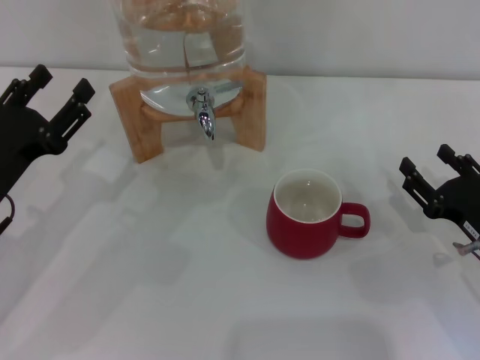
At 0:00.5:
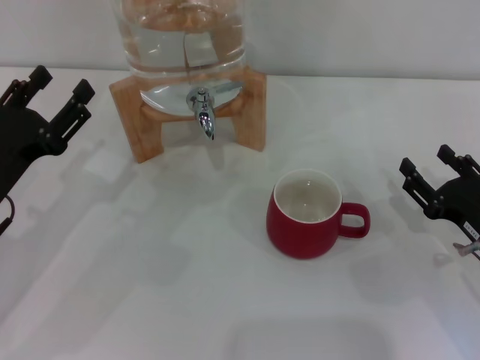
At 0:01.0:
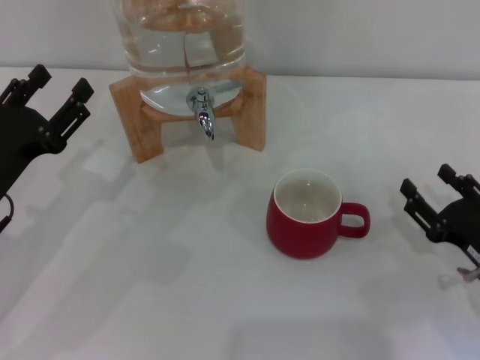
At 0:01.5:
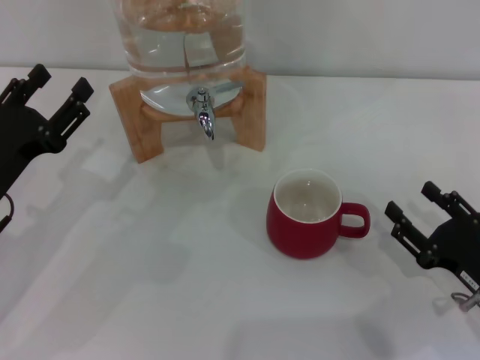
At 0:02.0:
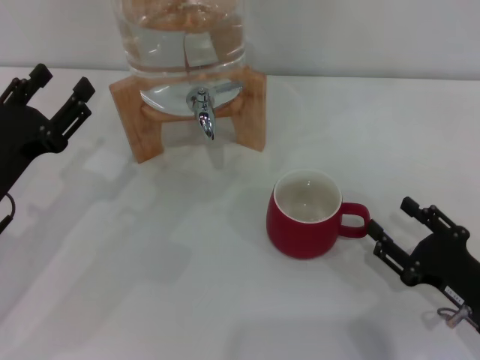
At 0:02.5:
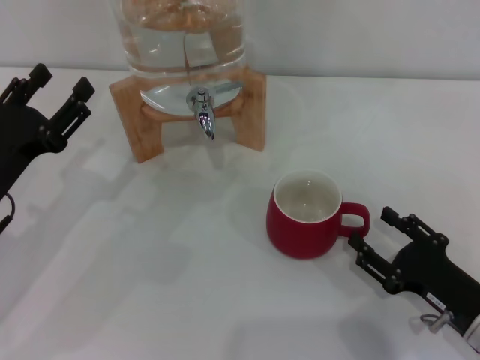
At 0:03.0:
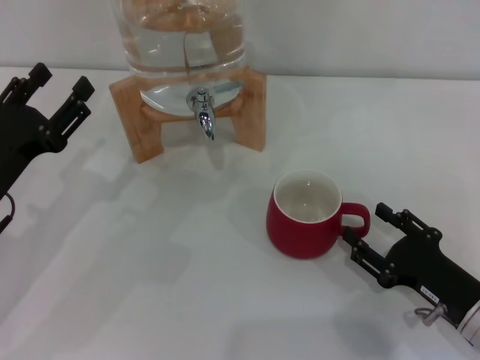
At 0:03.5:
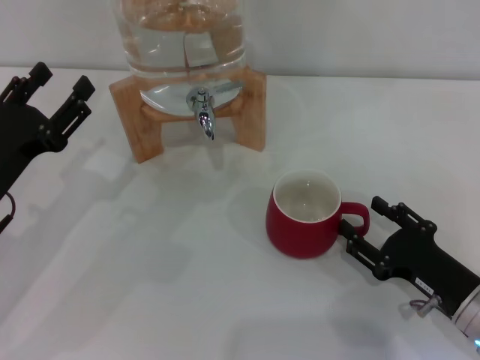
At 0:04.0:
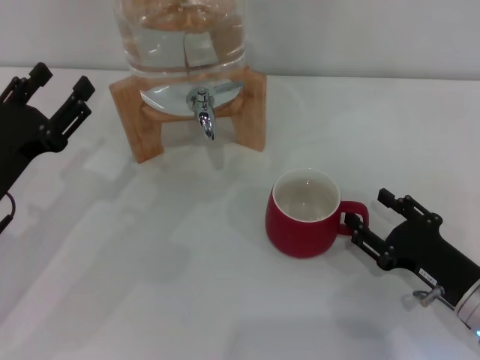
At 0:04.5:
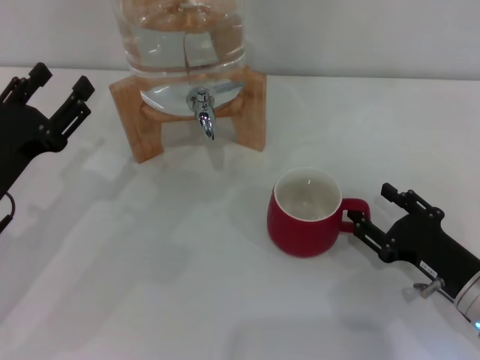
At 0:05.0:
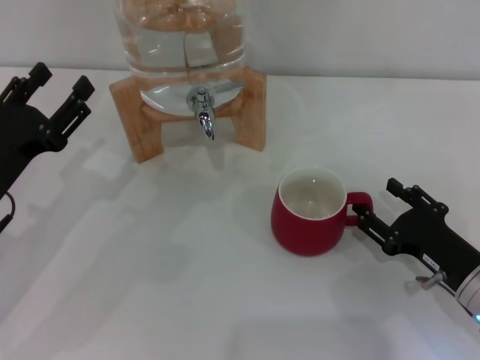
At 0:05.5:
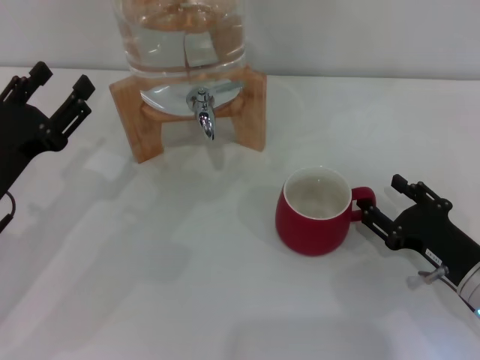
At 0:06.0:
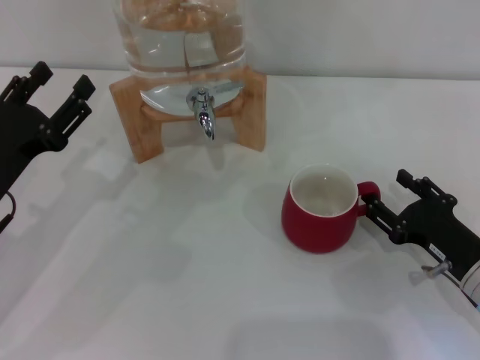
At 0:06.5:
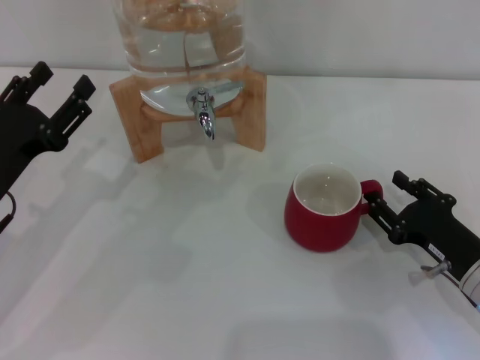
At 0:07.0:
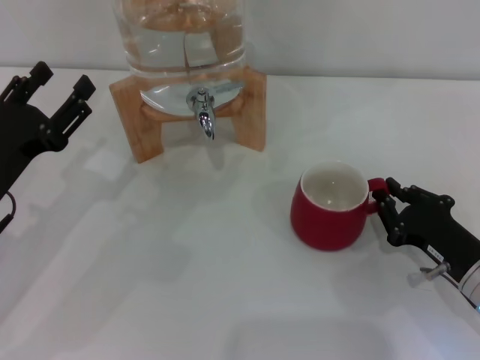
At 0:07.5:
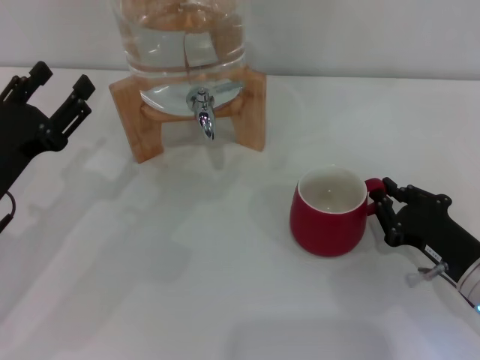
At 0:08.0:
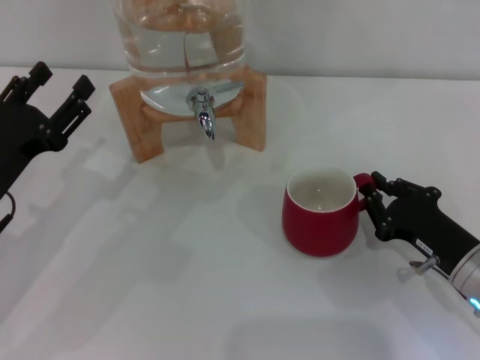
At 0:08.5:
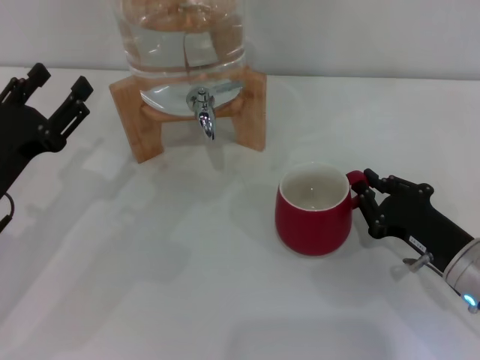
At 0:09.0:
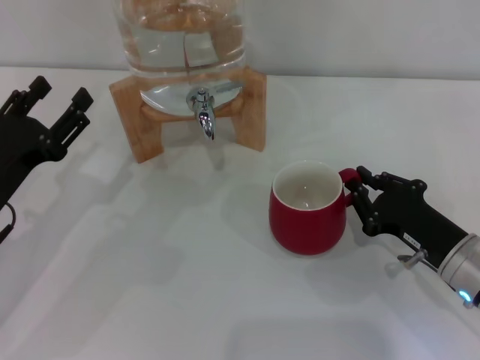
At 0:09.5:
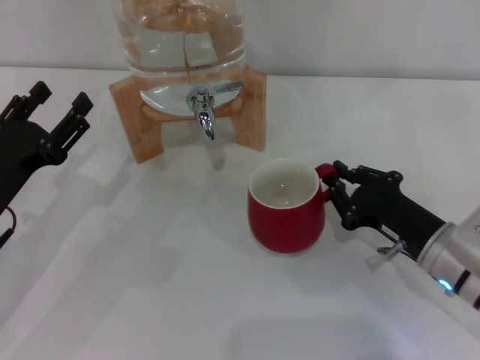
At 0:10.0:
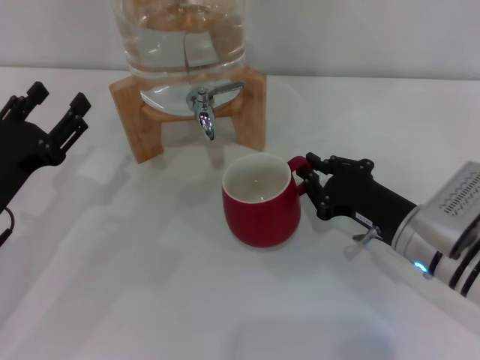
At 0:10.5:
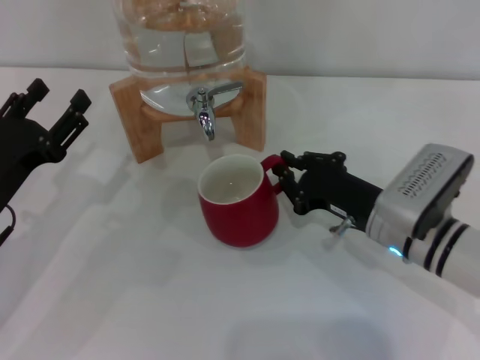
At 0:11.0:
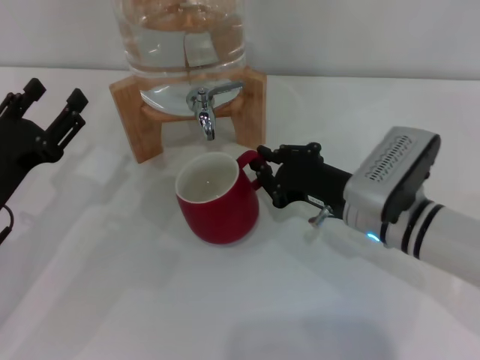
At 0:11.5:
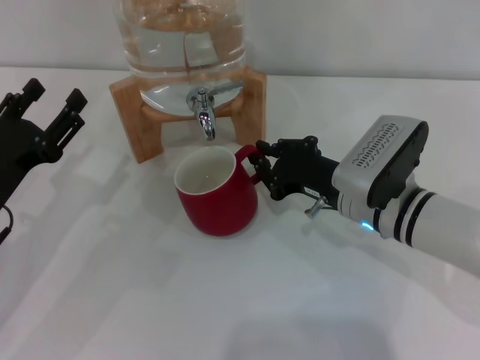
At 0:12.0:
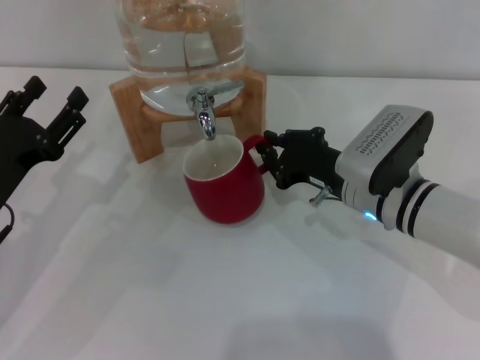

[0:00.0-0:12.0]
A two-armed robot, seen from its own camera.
Task of the whole recording: the right gripper pick up the red cup and place it horizontally under the faucet, the left gripper turn on the faucet to fill the cup, and then turn off the faucet.
0:00.0 to 0:02.0: The right gripper is displaced backward by approximately 5 cm.
0:02.0 to 0:06.0: There are only small adjustments of the grippers.
0:06.0 to 0:08.0: The right gripper closes up.
0:08.0 to 0:10.0: The right gripper travels to the left by about 5 cm.
0:10.0 to 0:12.0: The right gripper changes place by about 5 cm.

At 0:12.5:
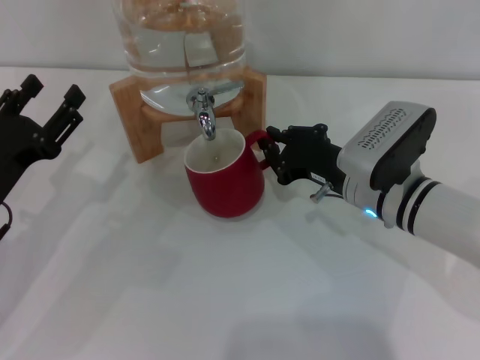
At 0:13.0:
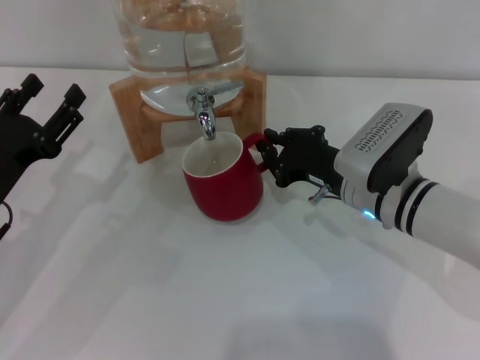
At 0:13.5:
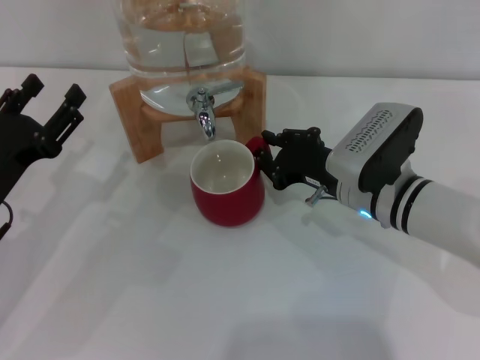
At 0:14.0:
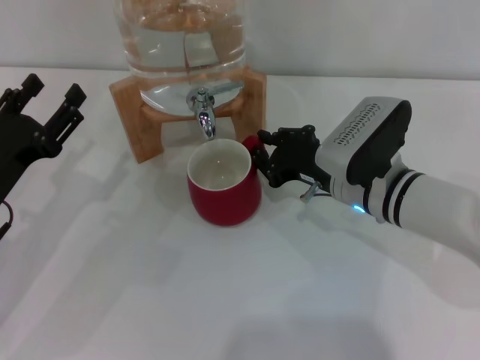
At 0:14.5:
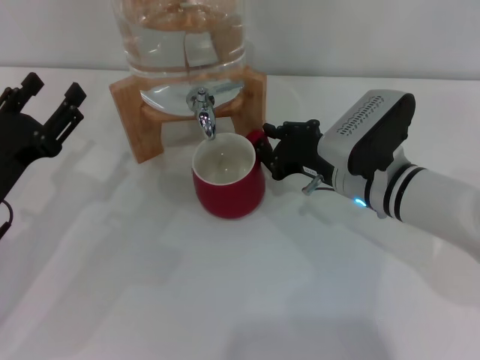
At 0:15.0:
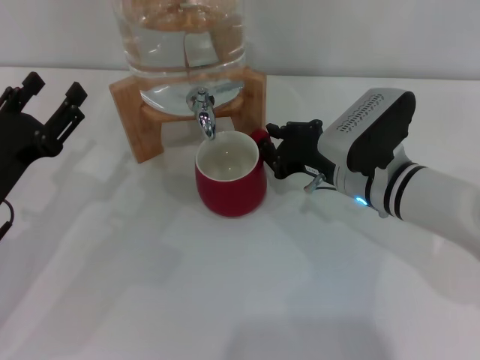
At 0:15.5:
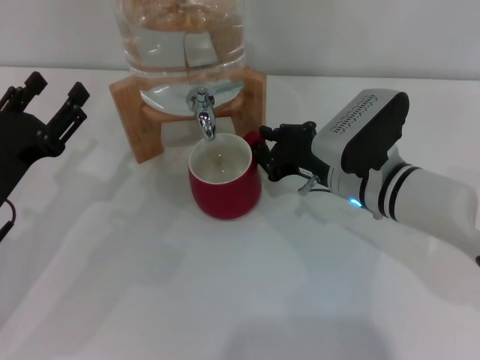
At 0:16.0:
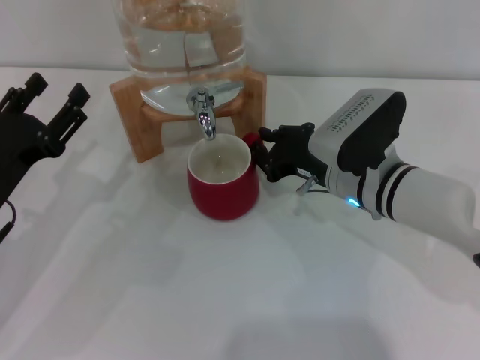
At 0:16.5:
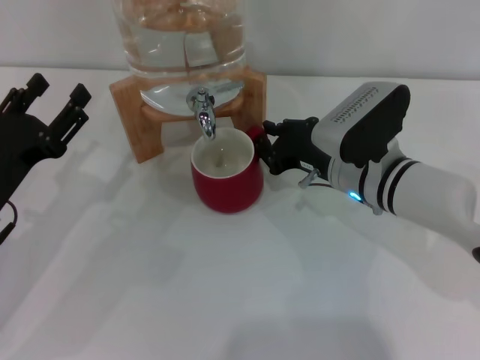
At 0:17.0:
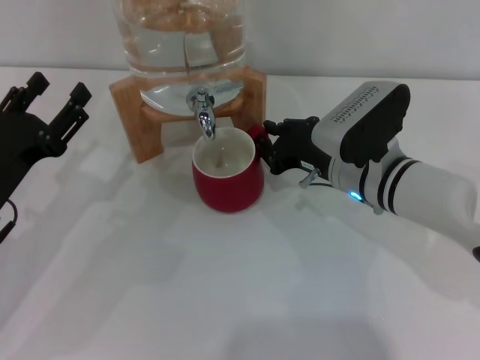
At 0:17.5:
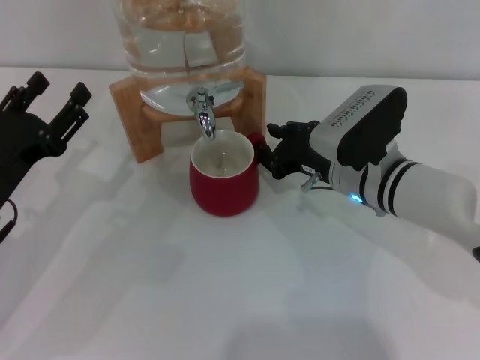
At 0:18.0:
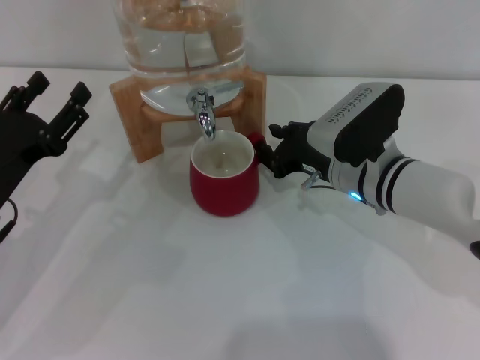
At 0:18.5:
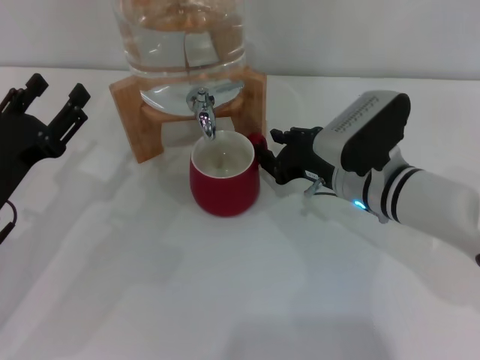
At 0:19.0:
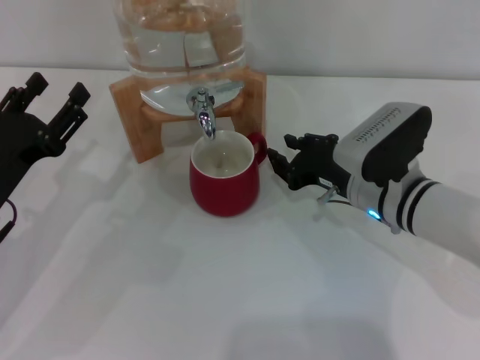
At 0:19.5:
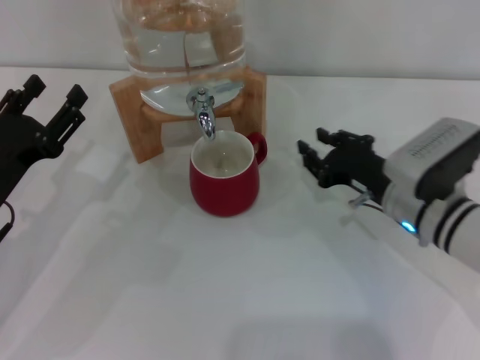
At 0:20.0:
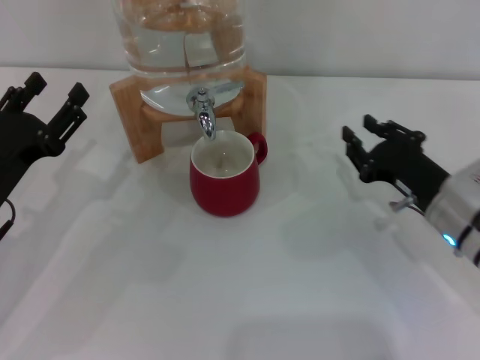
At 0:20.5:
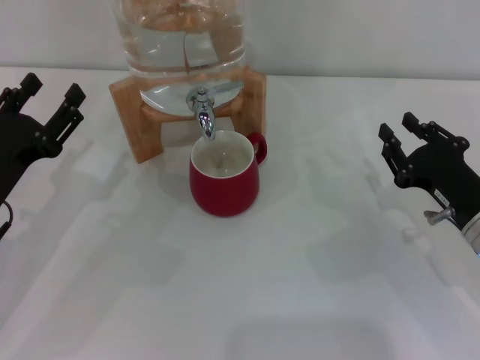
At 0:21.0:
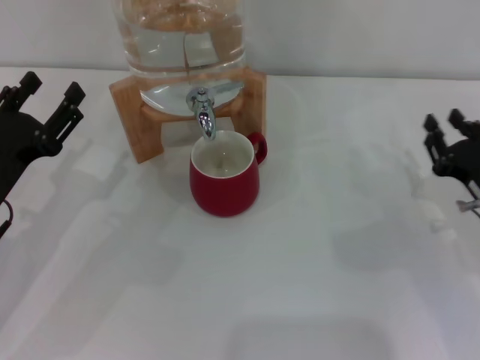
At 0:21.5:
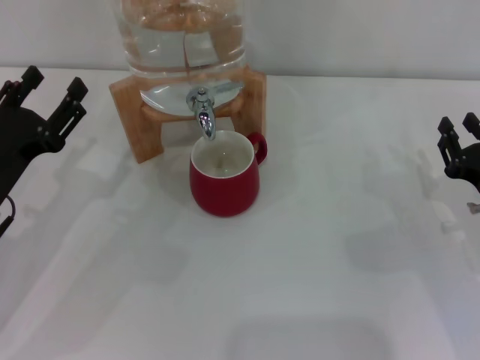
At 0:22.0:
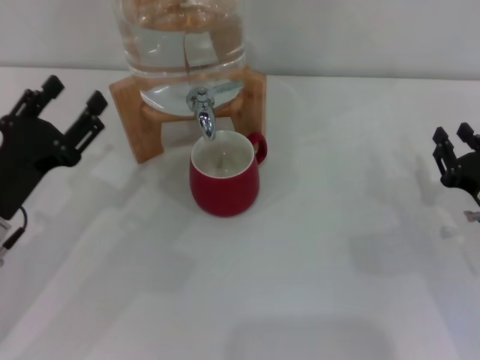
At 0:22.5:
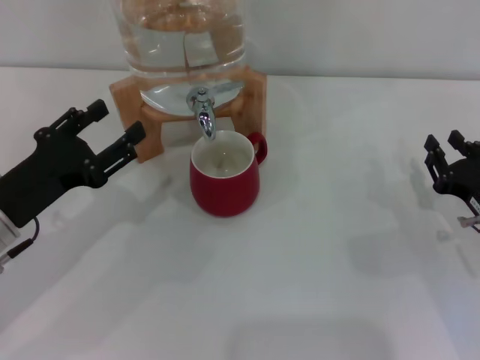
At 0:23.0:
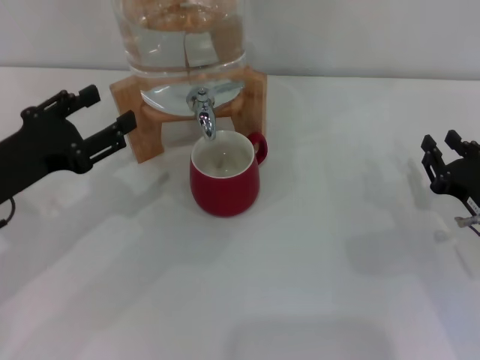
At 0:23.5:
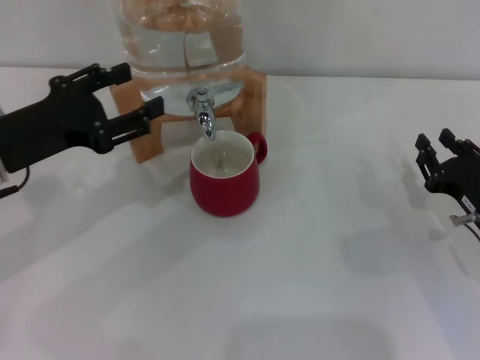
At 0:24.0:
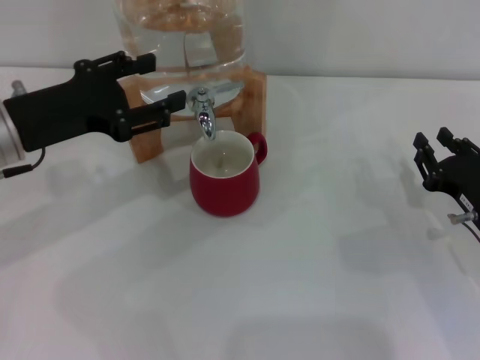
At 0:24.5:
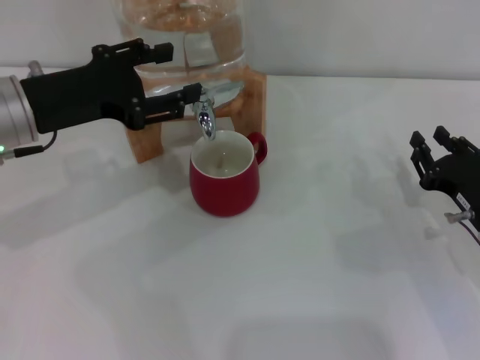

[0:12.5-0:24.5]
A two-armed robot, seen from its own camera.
Task of the whole recording: the right gripper pick up the red cup and place it horizontally under the faucet, the left gripper turn on the faucet to fill the cup, and then turn off the faucet.
Step, 0:12.5 to 0:19.0: Move the cup beneath the water dispenser nozzle with the right gripper.
0:12.5 to 0:14.5: The grippers make only small movements.
0:14.5 to 0:16.5: Neither gripper changes place.
0:16.5 to 0:18.5: Neither gripper changes place.
0:18.5 to 0:20.5: The right gripper shifts roughly 15 cm to the right and backward.
0:20.5 to 0:22.5: The grippers move only a little.
0:22.5 to 0:24.5: The left gripper heads upward and forward, covering about 10 cm.

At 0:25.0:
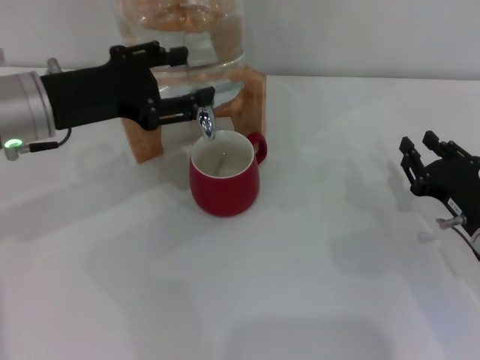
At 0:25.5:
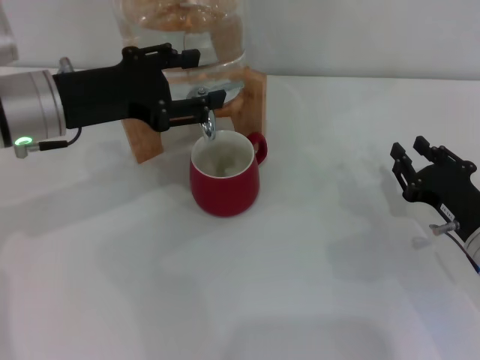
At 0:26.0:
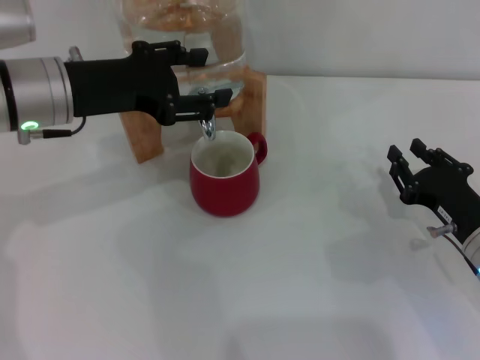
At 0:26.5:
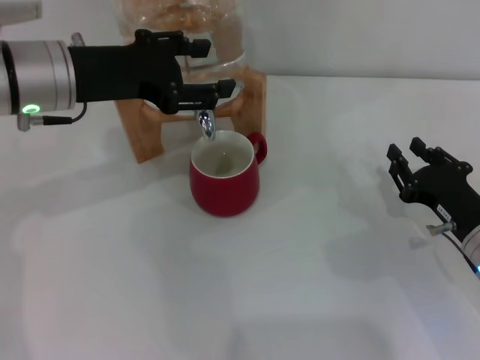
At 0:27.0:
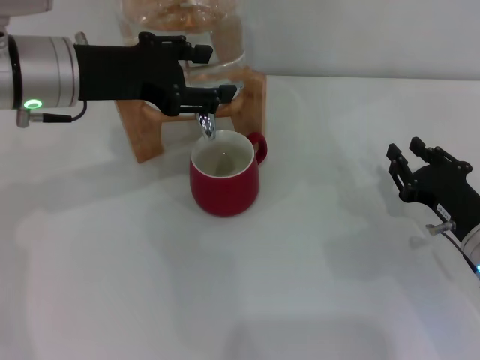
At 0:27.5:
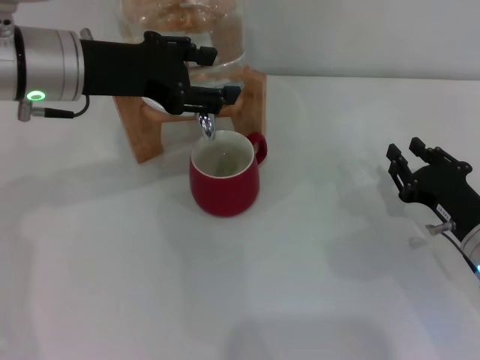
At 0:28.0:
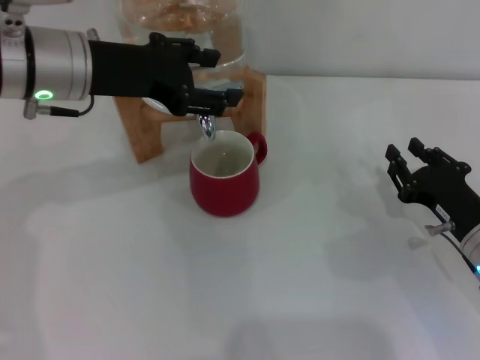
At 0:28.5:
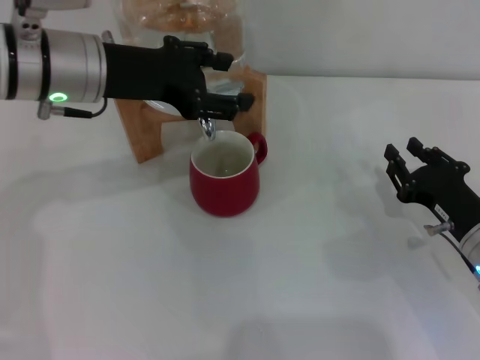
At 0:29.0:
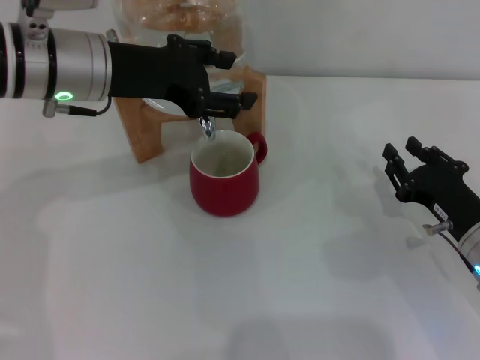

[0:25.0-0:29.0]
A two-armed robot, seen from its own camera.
Task of the whole recording: the right gripper pick up the red cup and place it horizontally under the faucet, the left gripper turn on the faucet to fill the cup, and then turn off the faucet.
0:25.0 to 0:27.0: The grippers move only a little.
0:27.0 to 0:29.0: The grippers move only a little.
